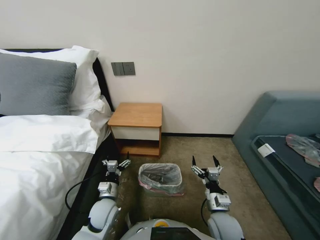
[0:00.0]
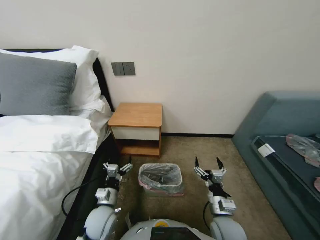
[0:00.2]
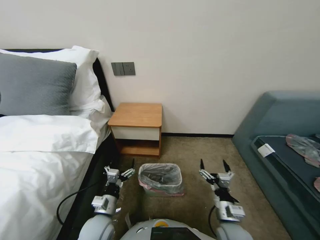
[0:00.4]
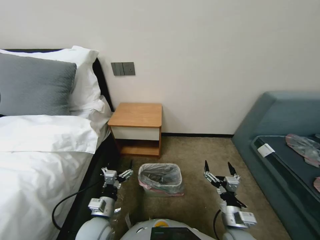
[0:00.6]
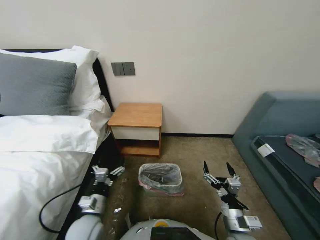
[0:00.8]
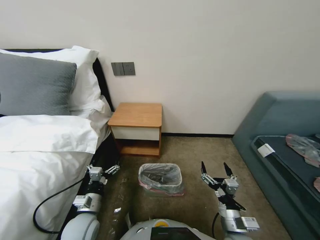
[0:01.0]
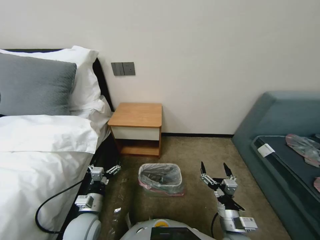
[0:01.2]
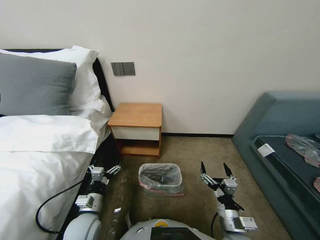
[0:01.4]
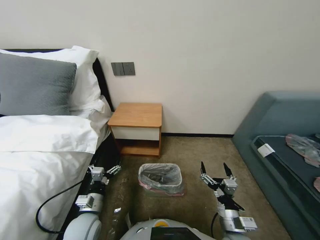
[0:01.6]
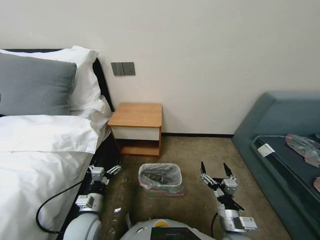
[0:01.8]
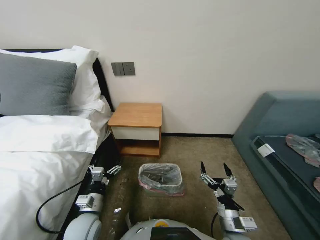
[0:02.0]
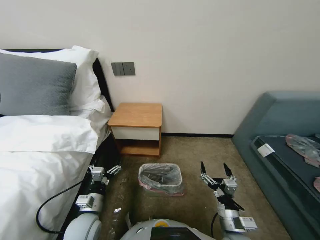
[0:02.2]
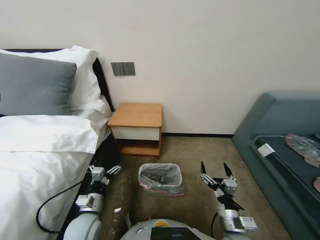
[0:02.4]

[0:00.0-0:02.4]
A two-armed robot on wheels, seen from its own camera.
Task of the whole recording: Pick up the garbage bag from the table and place it over the trash can.
0.0 to 1.2 s: The two grippers go roughly 5 cm backward.
1.2 to 2.4 s: Both grippers stay about where they are.

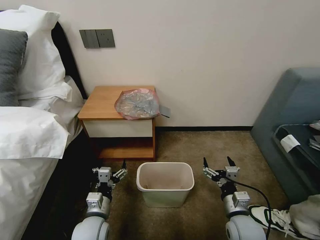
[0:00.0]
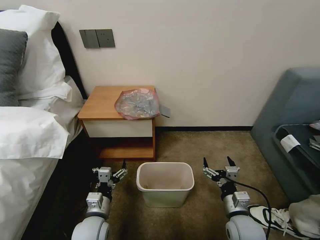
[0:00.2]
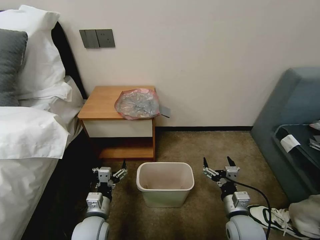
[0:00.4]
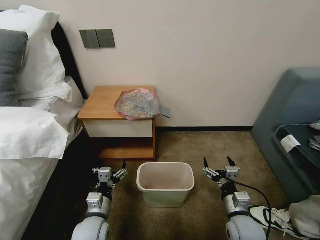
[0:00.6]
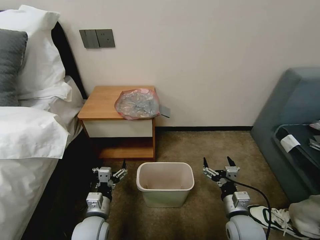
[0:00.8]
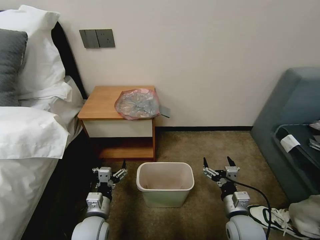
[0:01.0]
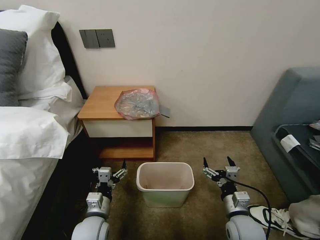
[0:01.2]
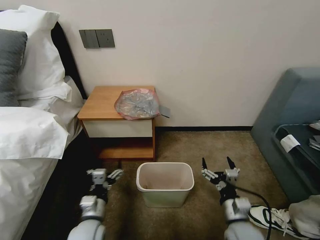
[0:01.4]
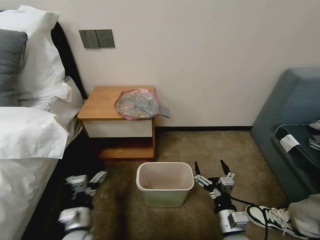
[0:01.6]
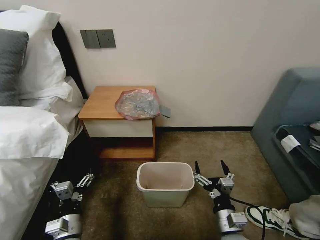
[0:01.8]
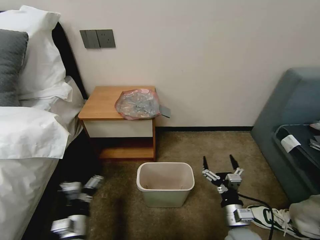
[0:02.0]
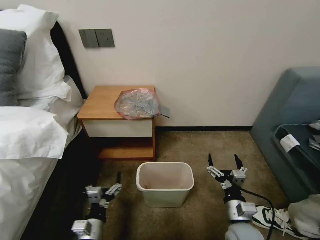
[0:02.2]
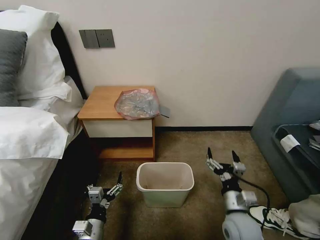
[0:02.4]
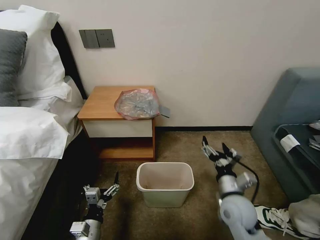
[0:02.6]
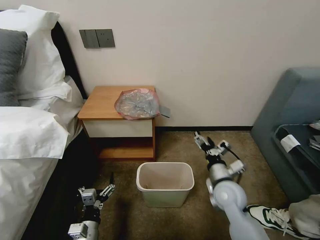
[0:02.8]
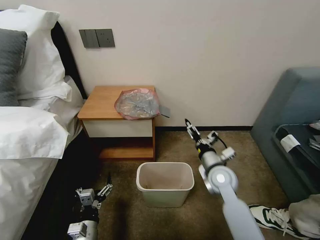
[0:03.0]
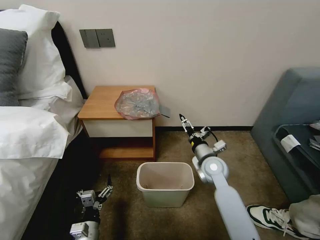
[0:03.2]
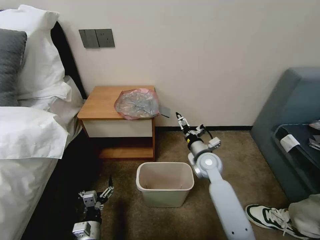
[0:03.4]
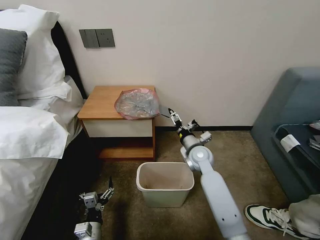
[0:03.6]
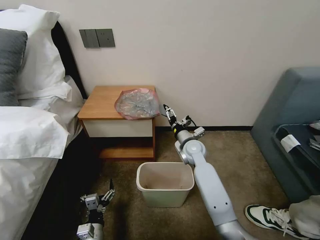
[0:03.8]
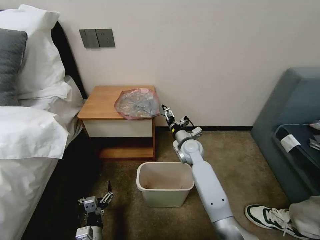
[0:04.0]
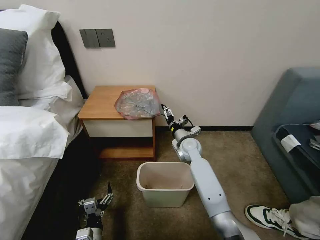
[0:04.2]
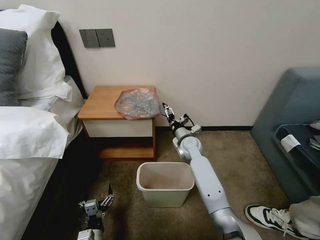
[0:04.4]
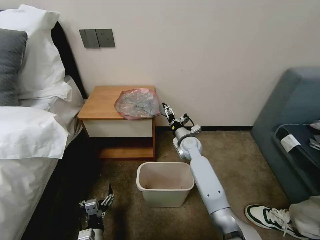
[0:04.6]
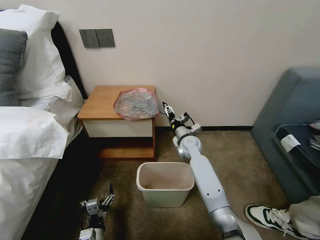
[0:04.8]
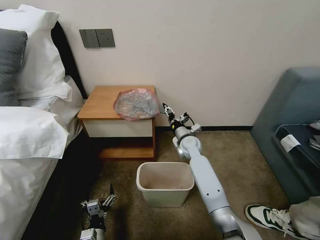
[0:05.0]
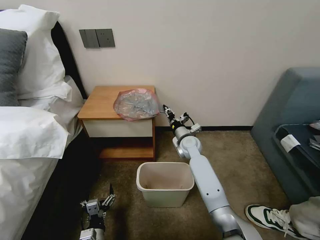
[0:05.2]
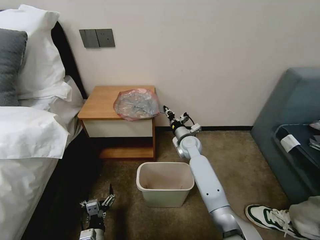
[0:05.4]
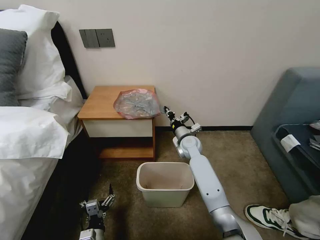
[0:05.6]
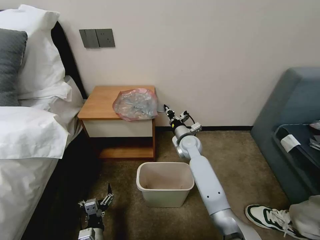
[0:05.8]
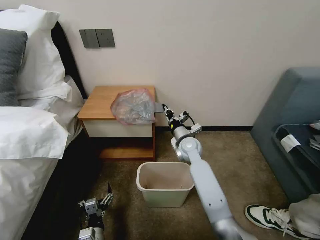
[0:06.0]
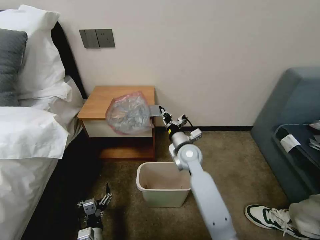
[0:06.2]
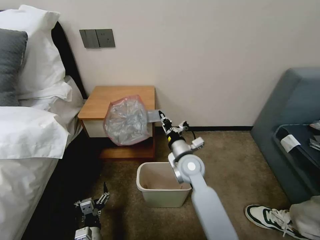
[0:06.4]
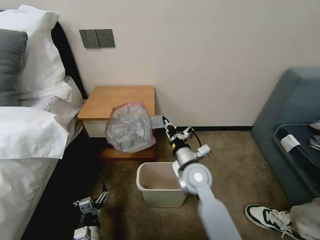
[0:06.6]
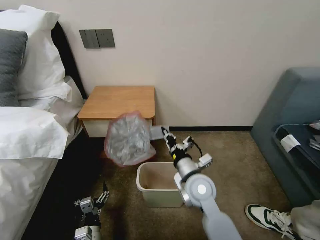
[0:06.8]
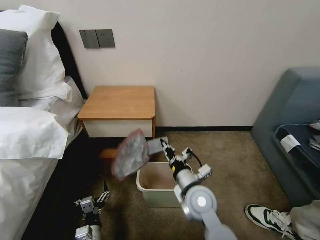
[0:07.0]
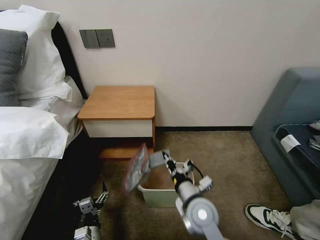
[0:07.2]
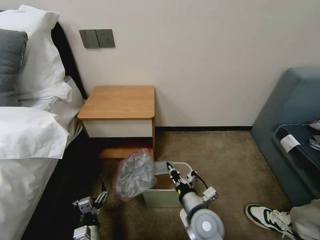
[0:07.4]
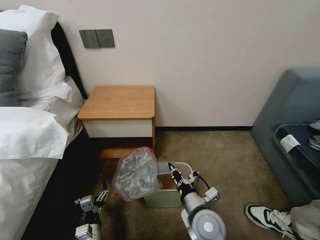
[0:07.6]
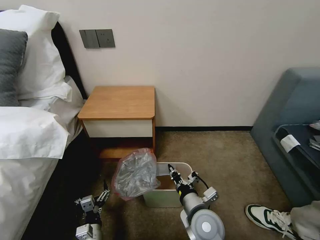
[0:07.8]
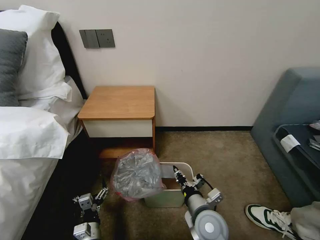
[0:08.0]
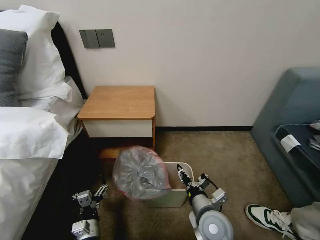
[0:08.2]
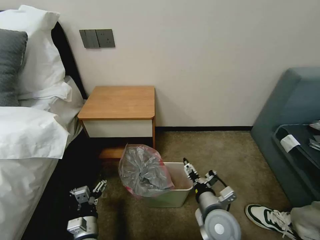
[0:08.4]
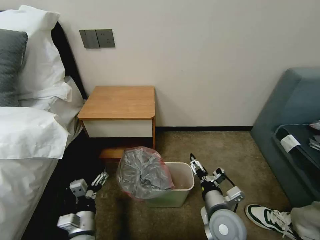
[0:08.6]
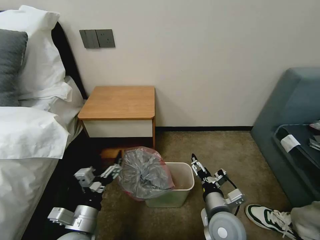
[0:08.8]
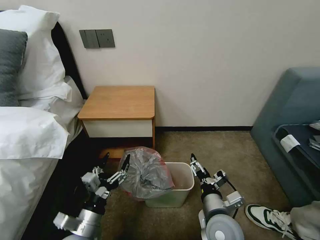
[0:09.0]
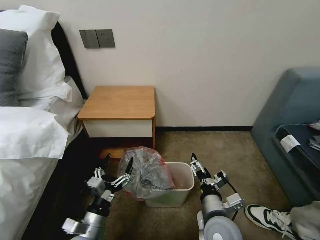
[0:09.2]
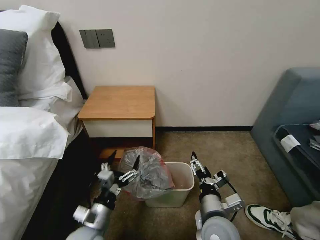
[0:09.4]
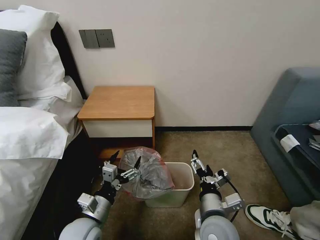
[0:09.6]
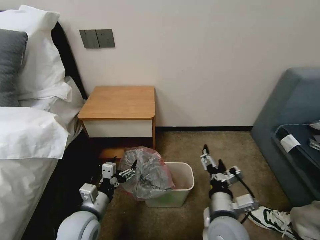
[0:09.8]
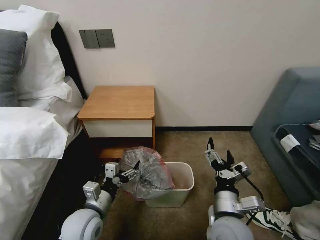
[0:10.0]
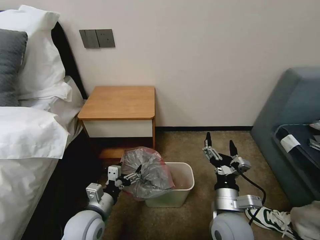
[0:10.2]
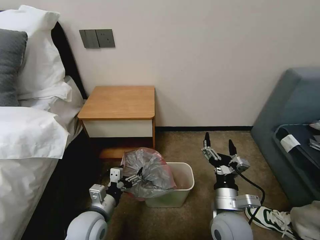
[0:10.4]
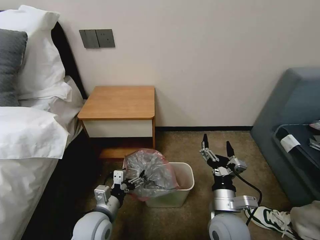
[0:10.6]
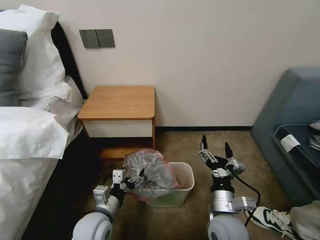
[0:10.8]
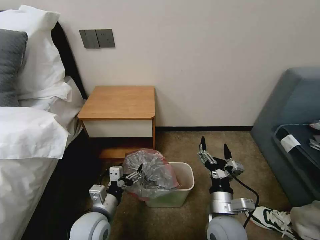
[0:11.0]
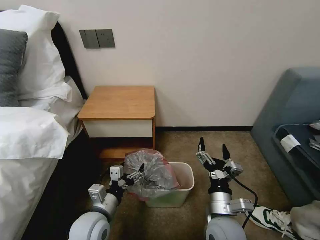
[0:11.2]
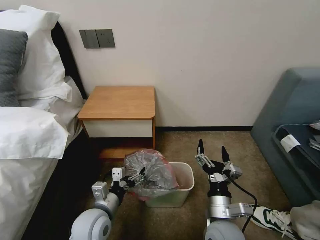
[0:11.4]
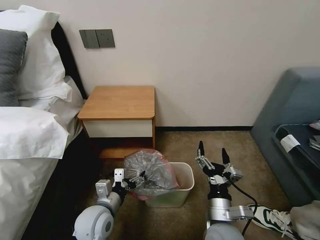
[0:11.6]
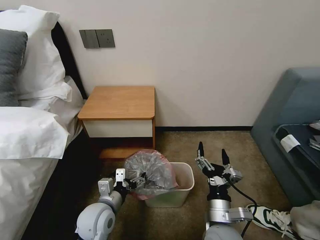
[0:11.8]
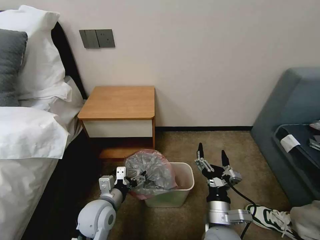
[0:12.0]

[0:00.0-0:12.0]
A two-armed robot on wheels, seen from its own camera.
Task of the whole recording: Pick up the garbage bag from the table and place it over the trash can.
1.6 to 3.0 s: The right gripper travels forward by about 20 cm, while the left gripper goes roughly 5 cm downward.
3.0 to 4.4 s: The right gripper goes approximately 15 cm forward and to the left.
4.4 to 6.0 s: The right gripper closes up.
6.0 to 7.6 s: The right gripper heads backward, covering about 25 cm.
7.6 to 9.0 s: The left gripper heads upward, covering approximately 15 cm. Meanwhile the right gripper opens up.
9.0 to 10.4 s: The left gripper travels forward by roughly 5 cm.
10.4 to 12.0 s: The grippers make only small movements.

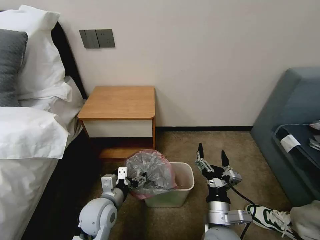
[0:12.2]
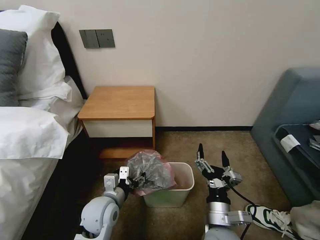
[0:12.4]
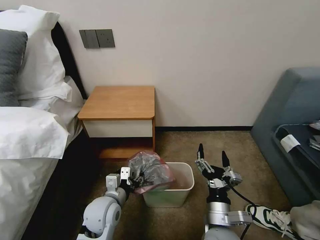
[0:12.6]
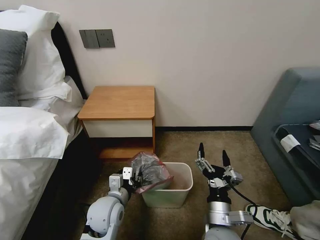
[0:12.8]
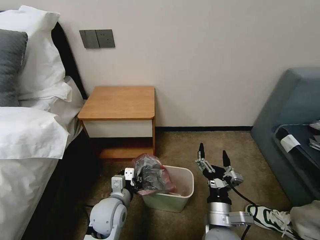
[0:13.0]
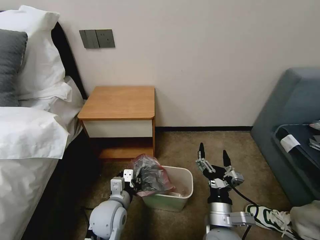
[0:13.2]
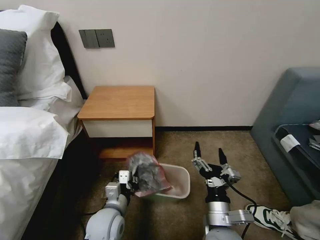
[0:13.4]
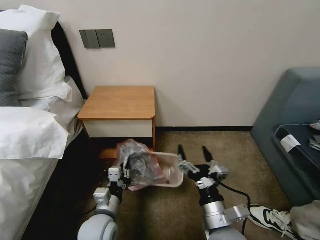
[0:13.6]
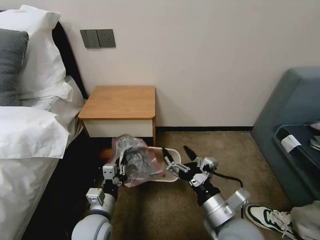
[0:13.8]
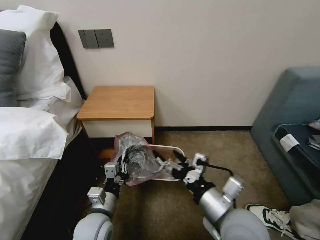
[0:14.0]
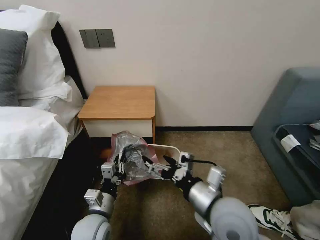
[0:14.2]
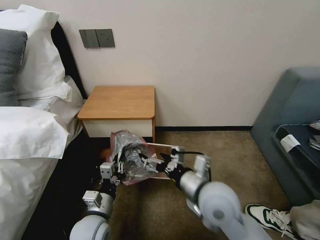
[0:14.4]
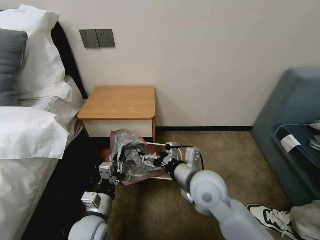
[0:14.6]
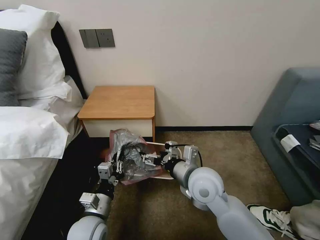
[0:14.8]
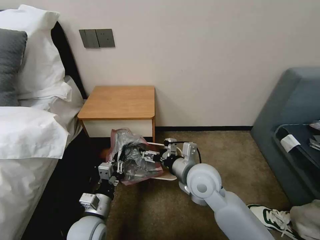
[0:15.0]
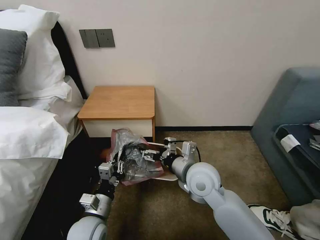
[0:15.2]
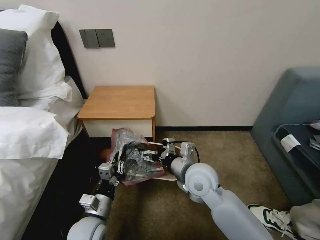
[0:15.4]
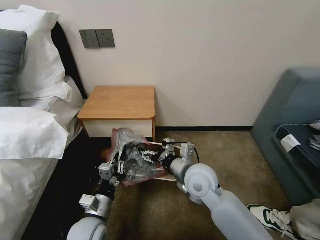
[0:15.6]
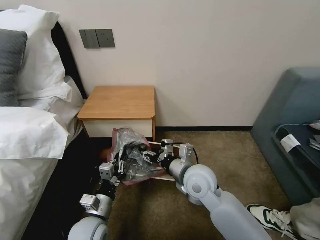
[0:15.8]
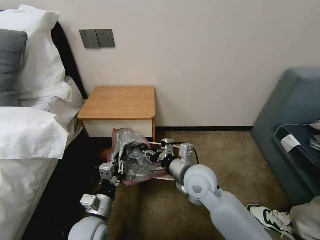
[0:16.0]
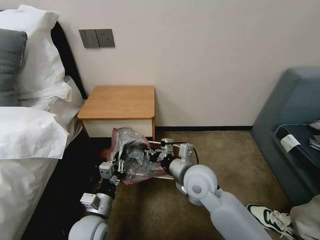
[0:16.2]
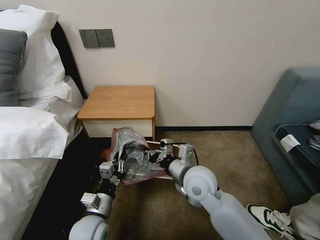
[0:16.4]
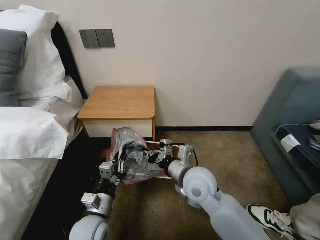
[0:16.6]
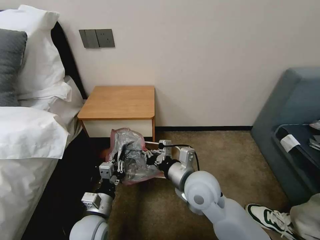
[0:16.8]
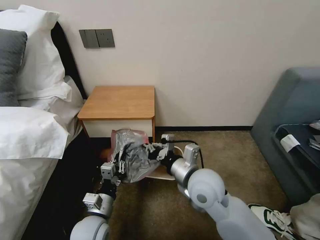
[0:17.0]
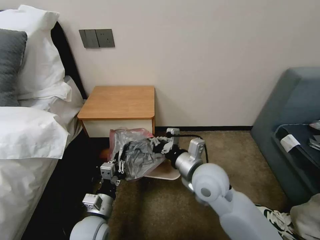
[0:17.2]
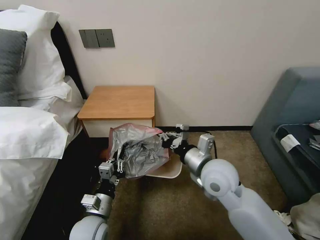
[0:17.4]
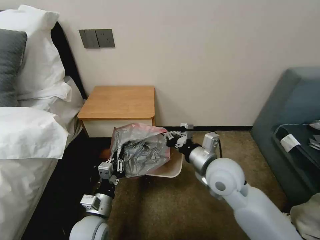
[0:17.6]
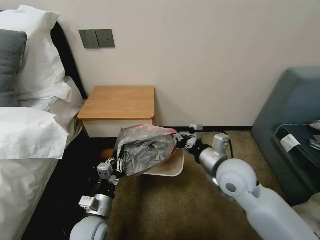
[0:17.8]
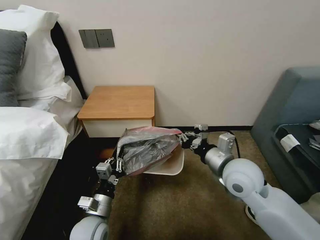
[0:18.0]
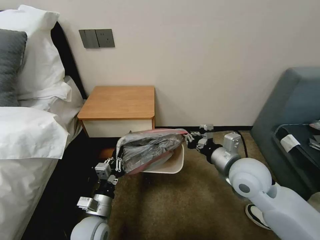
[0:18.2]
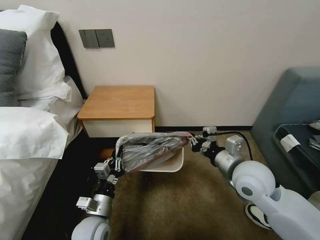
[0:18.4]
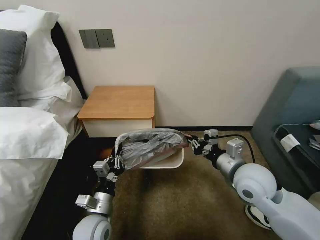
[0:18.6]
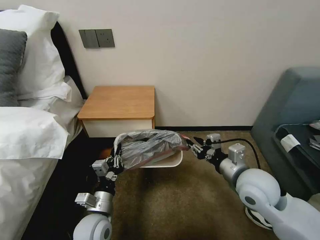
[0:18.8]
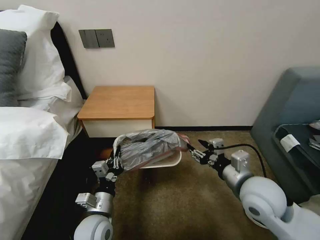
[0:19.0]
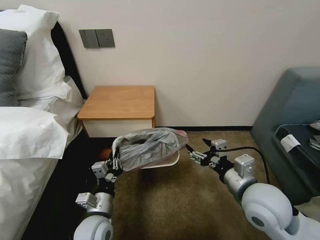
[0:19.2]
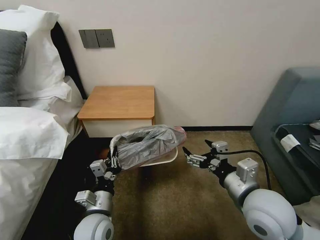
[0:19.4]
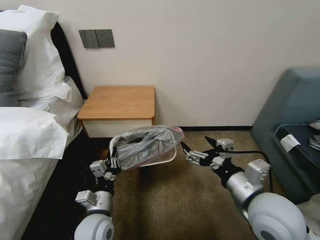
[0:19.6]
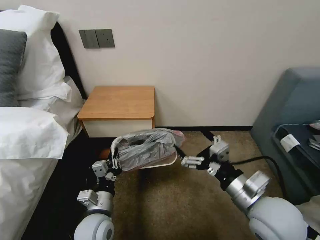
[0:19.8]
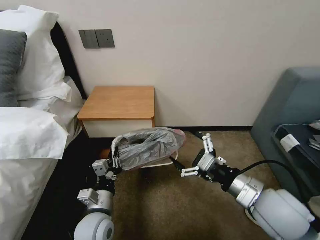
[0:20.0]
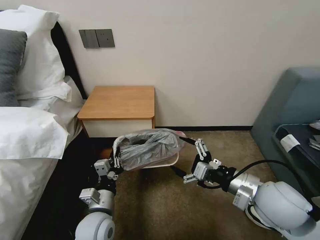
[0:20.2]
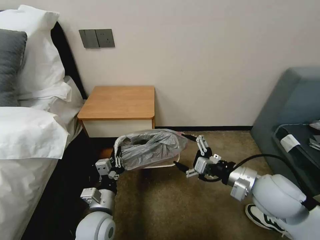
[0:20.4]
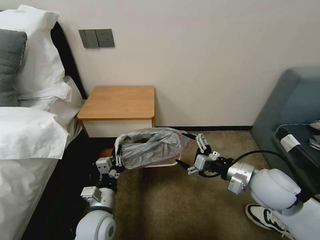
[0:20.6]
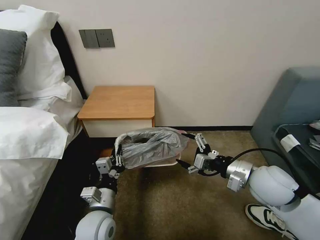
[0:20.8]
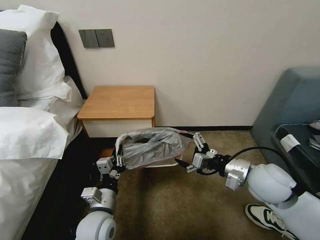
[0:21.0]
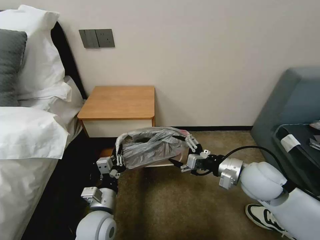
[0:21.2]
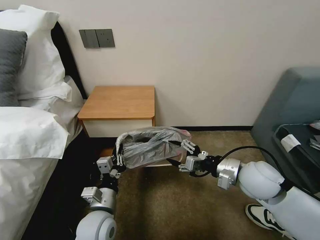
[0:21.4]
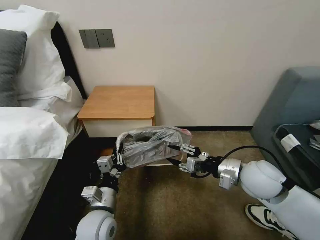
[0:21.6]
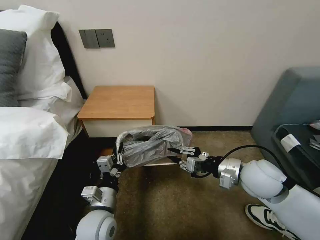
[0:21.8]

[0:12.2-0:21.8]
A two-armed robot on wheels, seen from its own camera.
Task of the whole recording: Pick up the garbage bag from the table and place it over the trash can.
12.2 to 13.8 s: The left gripper closes its fingers. Meanwhile the right gripper travels upward by some 5 cm.
13.8 to 15.4 s: The right gripper goes approximately 15 cm forward.
15.4 to 17.0 s: The right gripper closes.
17.0 to 18.6 s: The right gripper moves to the right, some 15 cm.
18.6 to 20.2 s: The right gripper shifts some 5 cm backward, and opens its fingers.
20.2 to 21.8 s: The right gripper moves forward, about 5 cm, and closes up.
